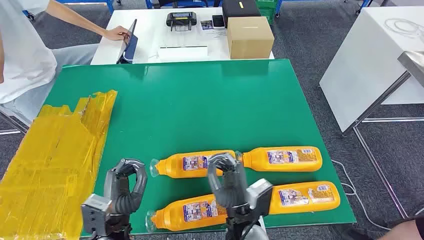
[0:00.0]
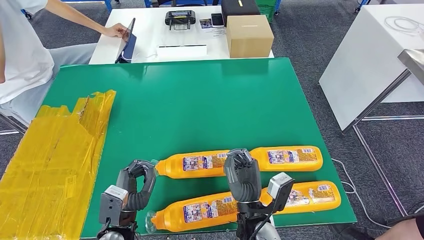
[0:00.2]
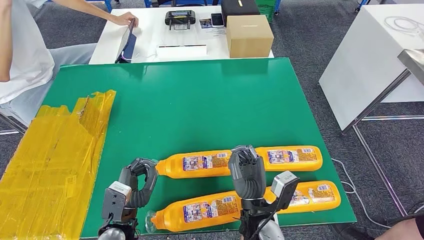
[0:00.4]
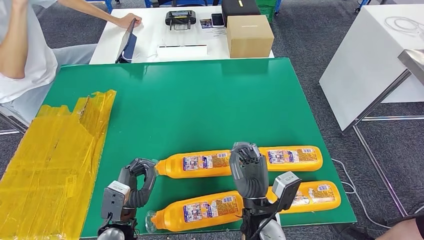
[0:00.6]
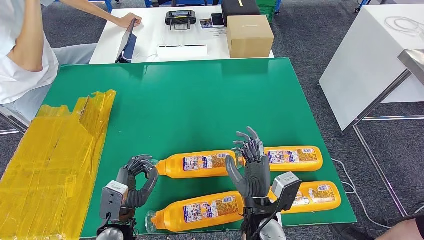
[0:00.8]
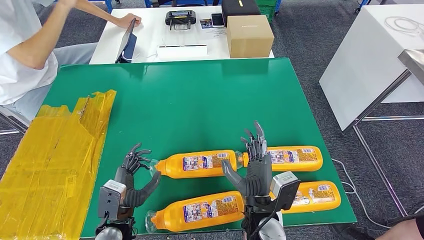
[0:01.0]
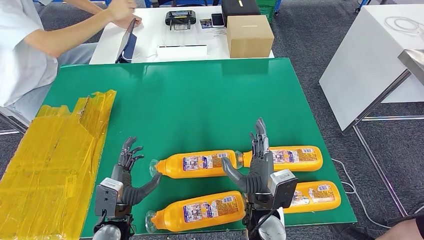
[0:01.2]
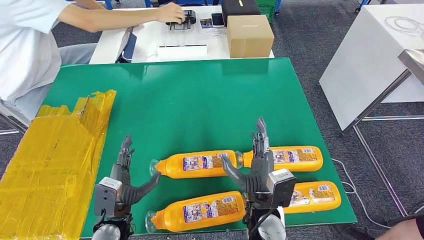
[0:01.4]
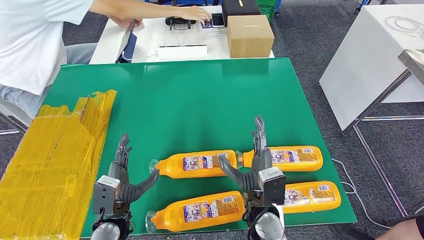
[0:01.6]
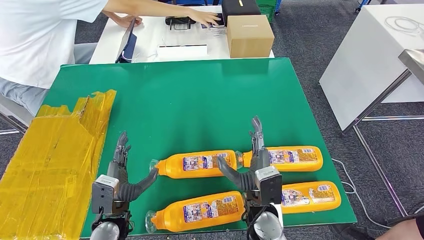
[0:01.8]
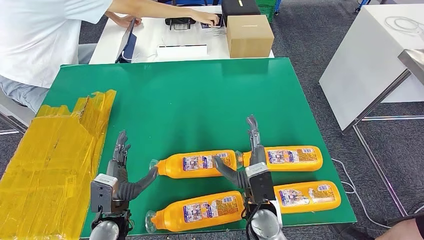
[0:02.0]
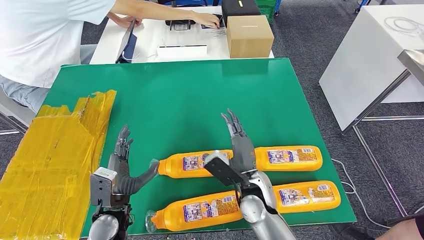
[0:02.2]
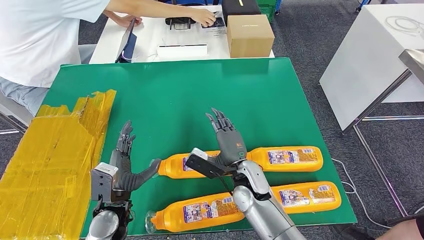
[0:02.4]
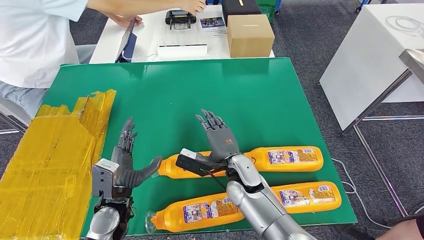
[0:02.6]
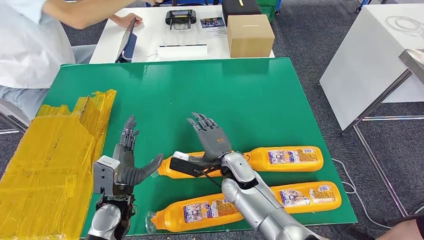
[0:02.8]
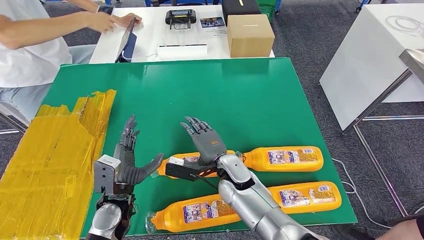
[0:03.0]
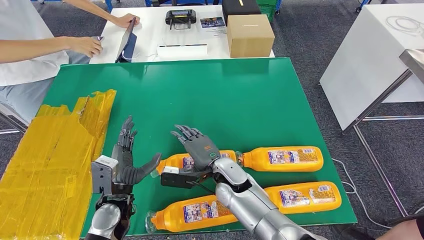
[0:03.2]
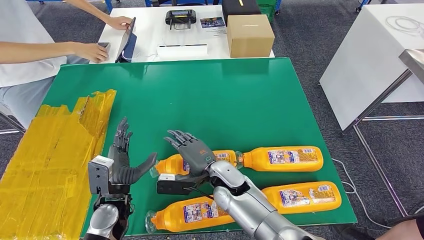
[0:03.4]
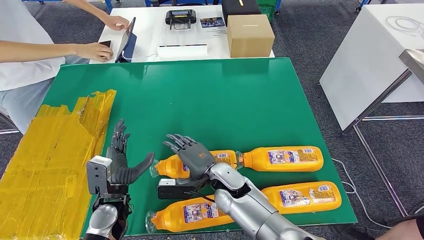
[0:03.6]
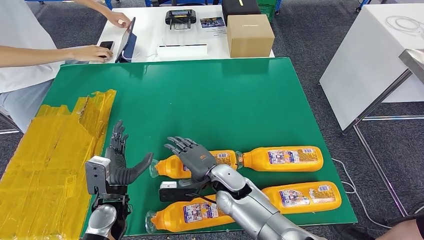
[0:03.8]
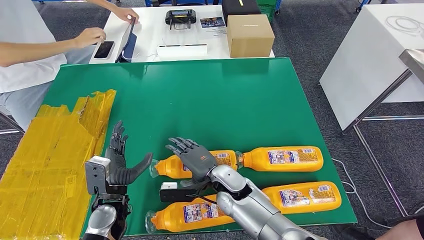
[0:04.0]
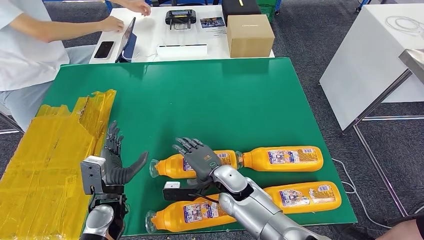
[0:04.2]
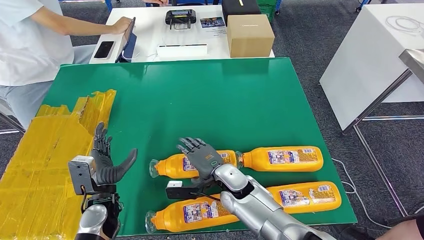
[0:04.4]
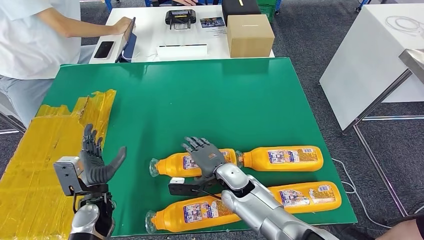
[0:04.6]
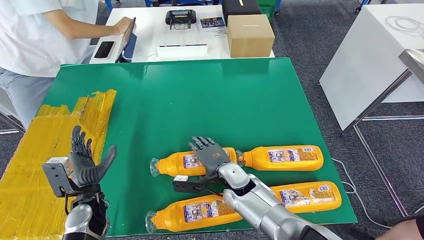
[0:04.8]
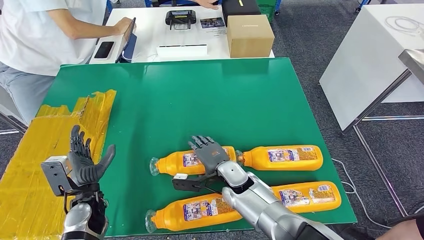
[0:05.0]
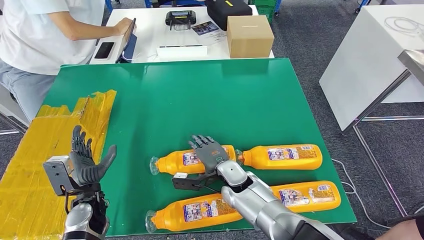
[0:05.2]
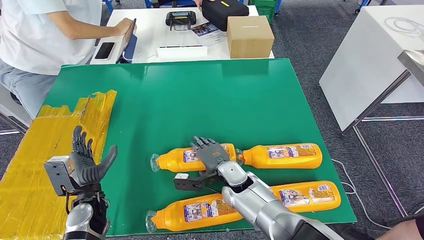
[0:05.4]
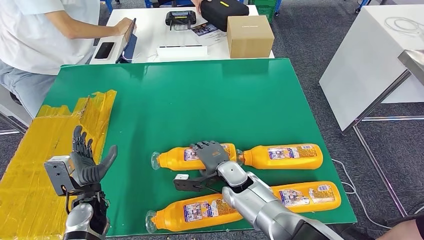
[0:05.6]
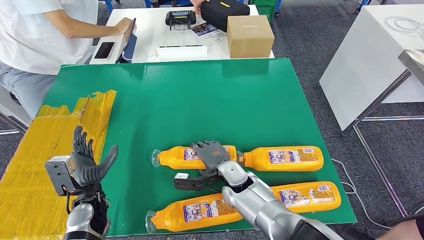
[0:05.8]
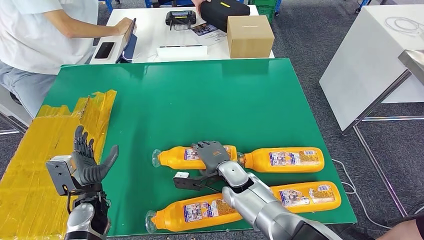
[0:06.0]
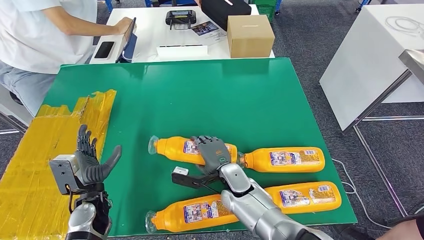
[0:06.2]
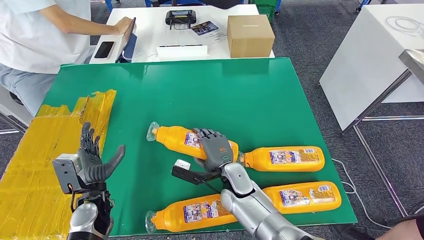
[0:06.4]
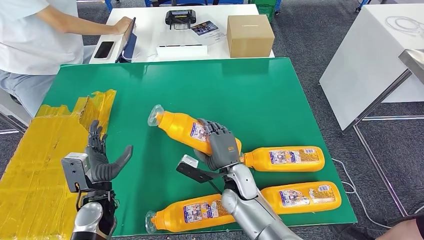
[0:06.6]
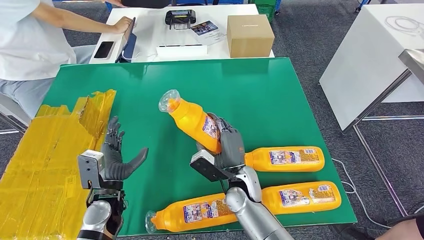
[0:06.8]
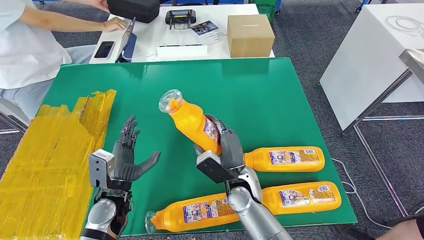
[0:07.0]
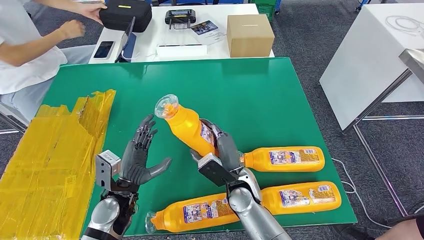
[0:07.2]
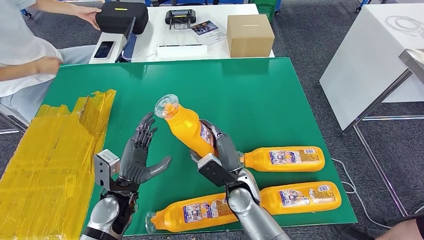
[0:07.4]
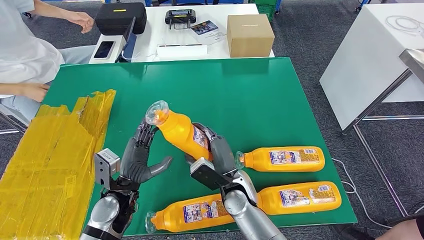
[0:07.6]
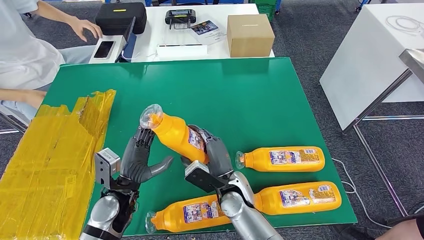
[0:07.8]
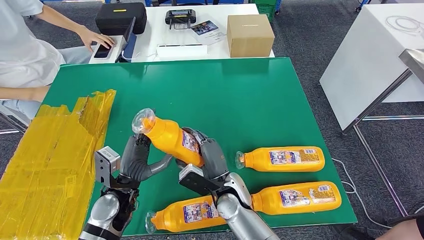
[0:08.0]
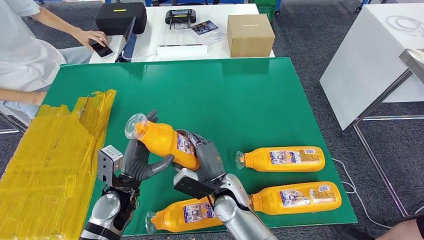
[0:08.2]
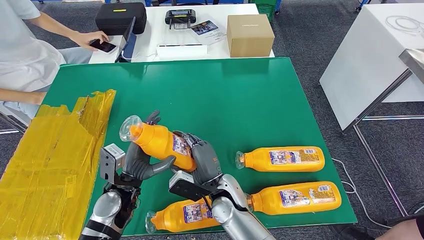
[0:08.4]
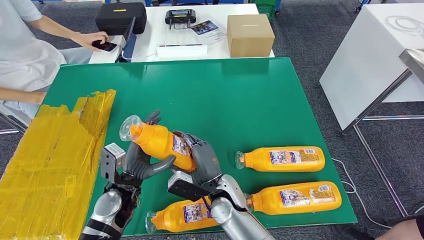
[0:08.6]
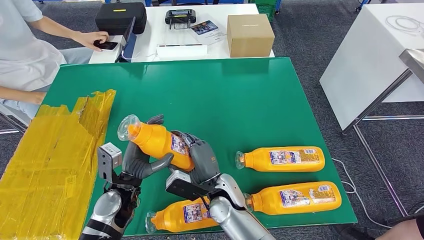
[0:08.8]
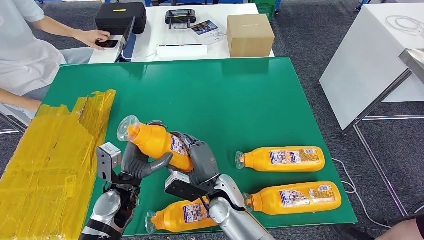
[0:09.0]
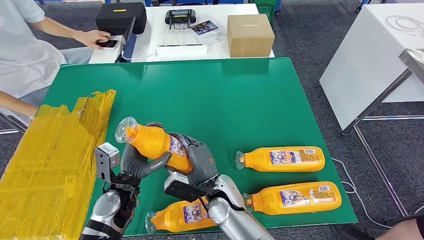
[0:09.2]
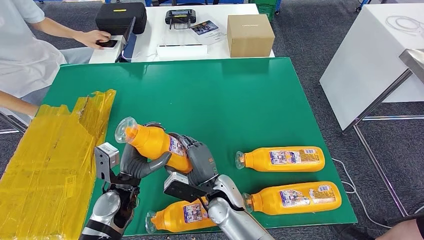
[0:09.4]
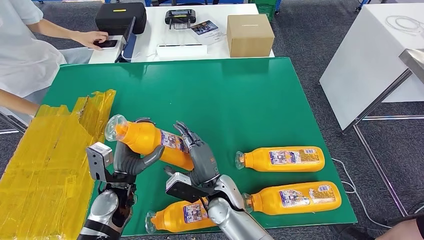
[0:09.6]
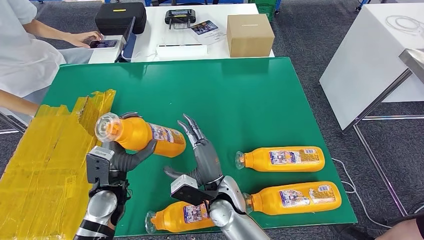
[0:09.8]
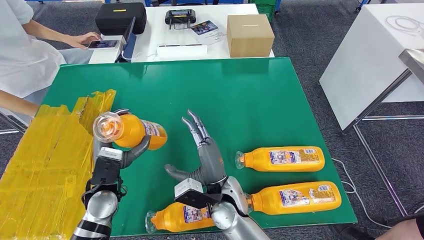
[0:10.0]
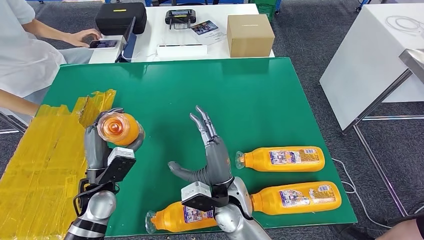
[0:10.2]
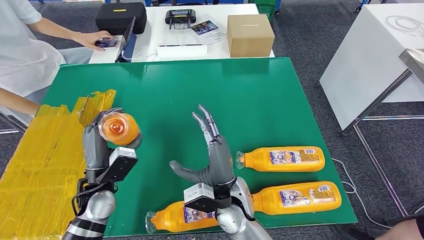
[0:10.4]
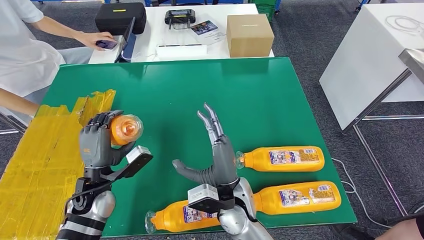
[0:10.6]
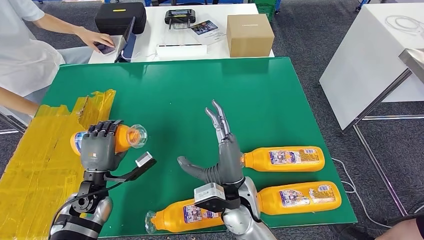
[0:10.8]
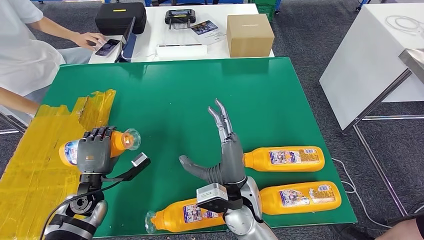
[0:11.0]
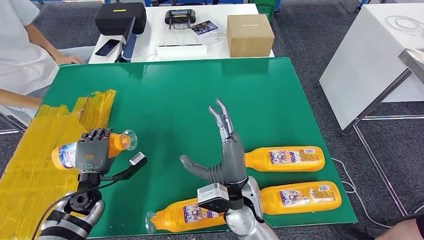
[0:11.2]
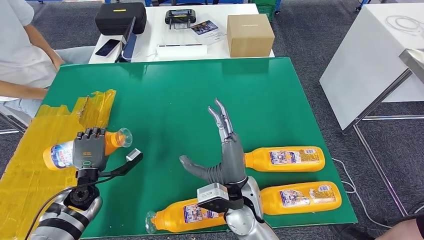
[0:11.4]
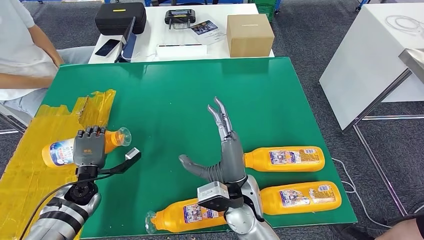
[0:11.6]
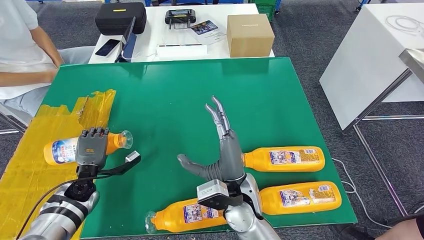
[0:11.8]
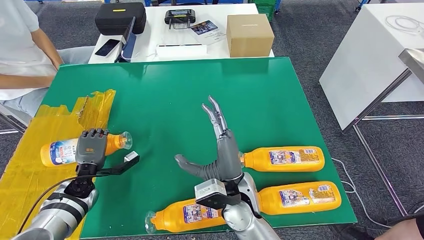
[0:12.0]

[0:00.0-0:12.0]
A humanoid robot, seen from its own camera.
Step, 0.0 to 8.2 s: Take the bottle from the table.
3.0 to 4.4 s: The hands stay close to where they were, moving slightly.
7.6 to 9.0 s: The hands move only a little.
9.0 to 10.4 s: The left hand travels to the left by about 5 cm; the right hand moves some 5 cm.
10.4 to 12.0 s: The left hand travels downward, to the left and forward by approximately 15 cm.

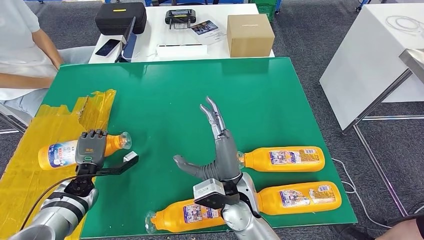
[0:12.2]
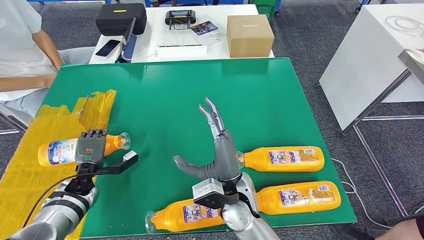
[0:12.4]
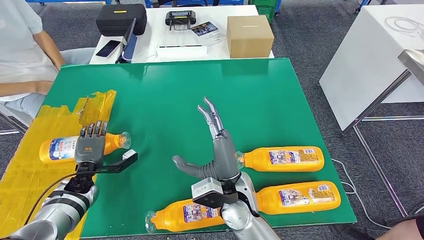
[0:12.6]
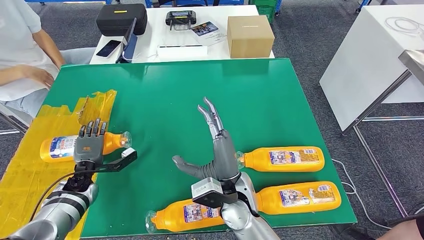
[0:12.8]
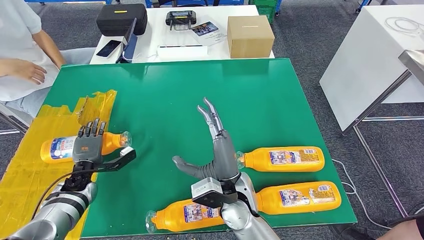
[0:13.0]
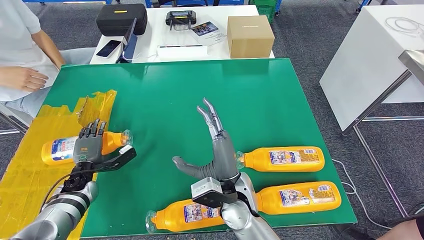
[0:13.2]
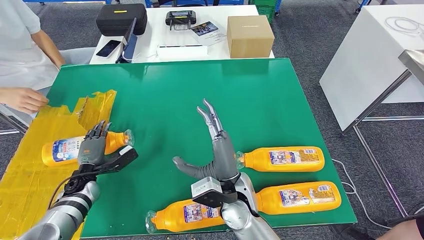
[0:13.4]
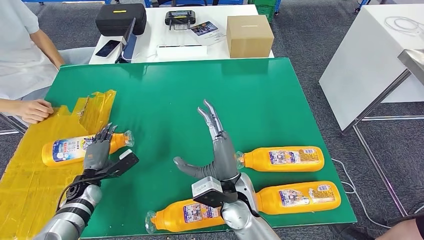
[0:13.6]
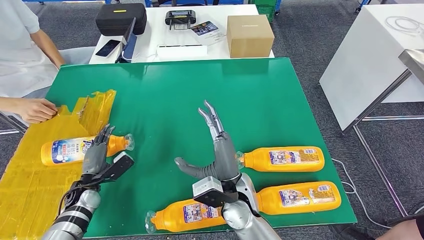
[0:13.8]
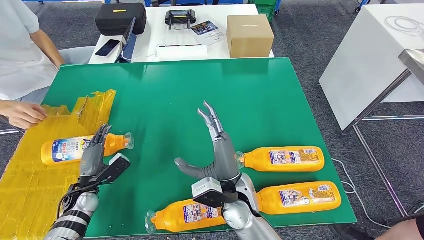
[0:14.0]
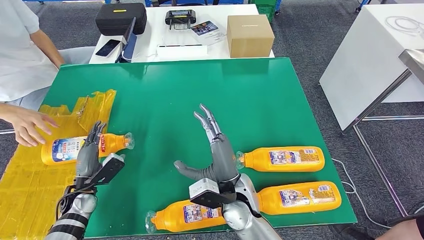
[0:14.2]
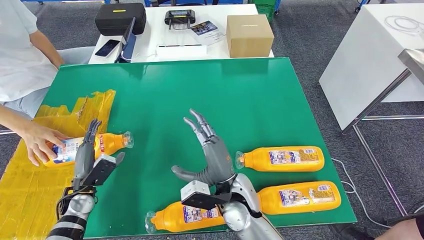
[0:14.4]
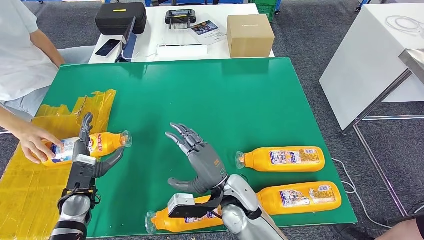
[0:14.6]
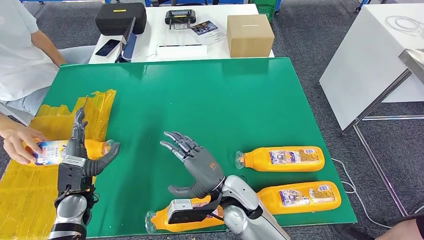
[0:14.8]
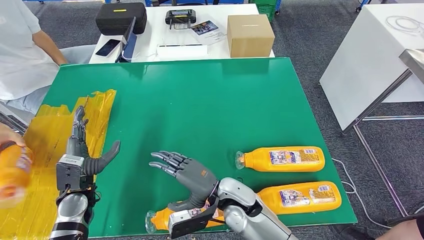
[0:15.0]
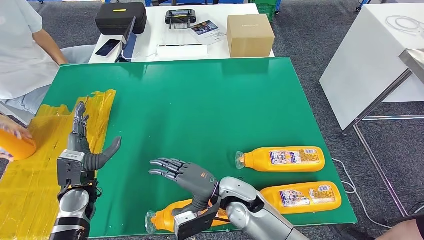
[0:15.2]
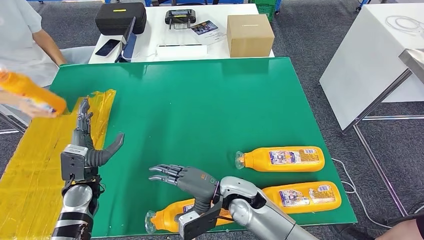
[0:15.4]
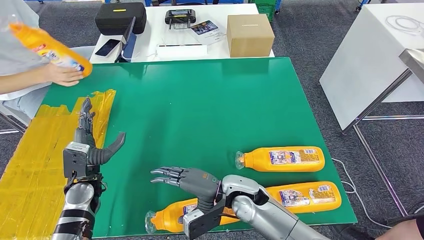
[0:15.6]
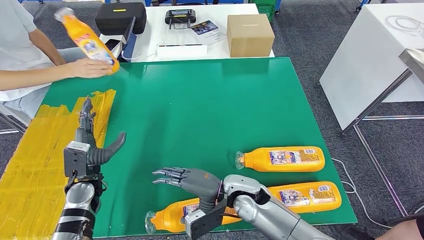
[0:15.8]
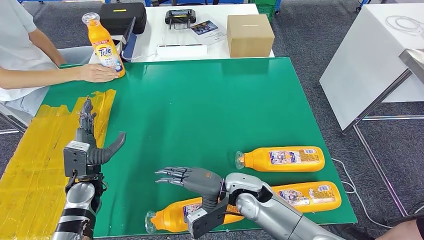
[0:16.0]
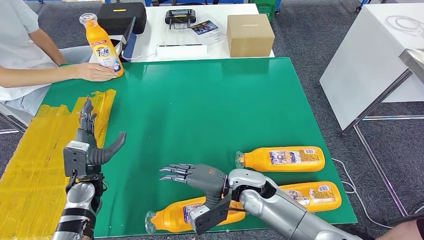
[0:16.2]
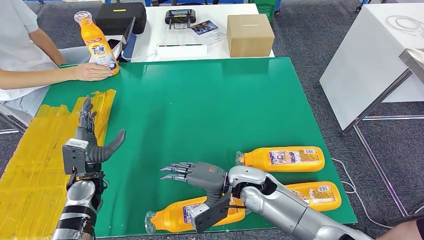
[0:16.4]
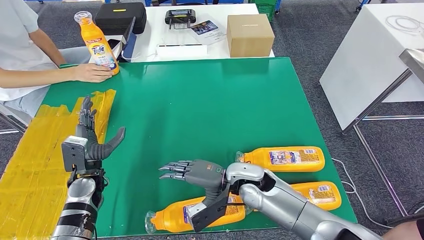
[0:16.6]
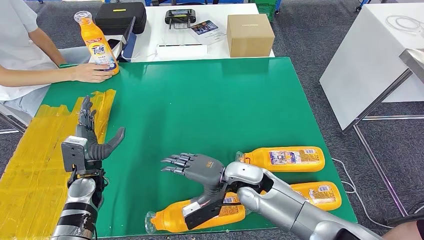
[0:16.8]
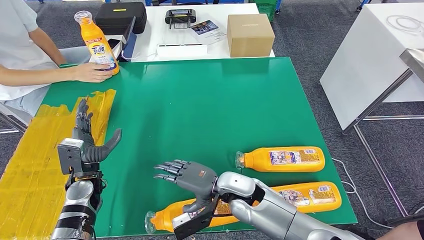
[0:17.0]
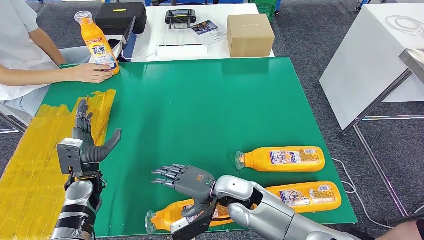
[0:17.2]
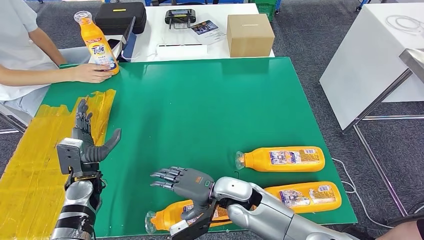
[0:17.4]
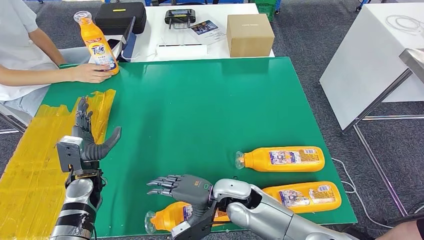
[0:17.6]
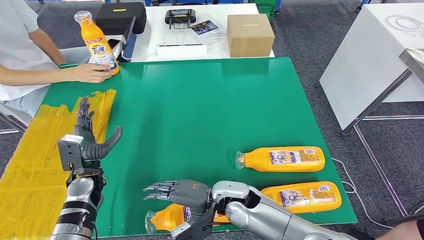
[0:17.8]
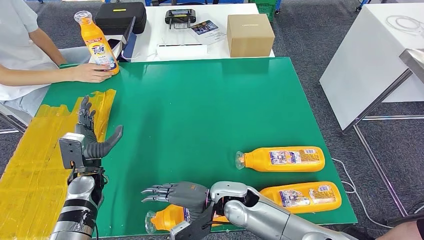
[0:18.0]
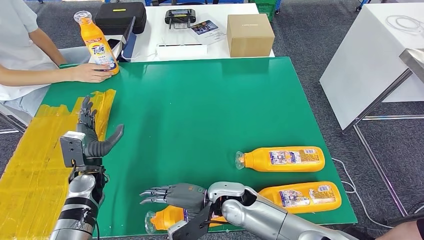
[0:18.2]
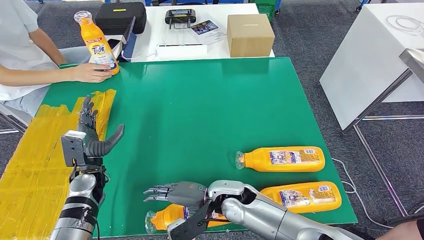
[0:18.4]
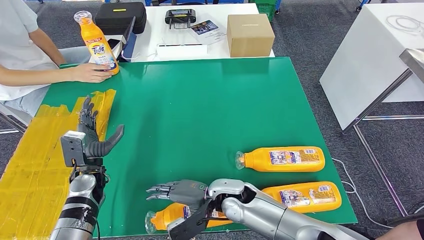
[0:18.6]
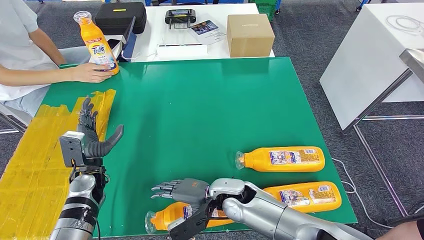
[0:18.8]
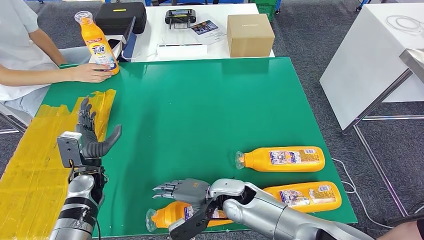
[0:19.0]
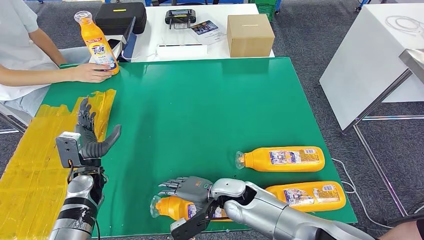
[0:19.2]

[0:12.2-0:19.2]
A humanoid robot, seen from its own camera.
13.6 to 15.0 s: The left hand moves upward, approximately 5 cm.
15.0 to 16.4 s: The right hand ends up roughly 5 cm from where it was.
16.4 to 17.8 s: The right hand ends up some 5 cm from where it was.
